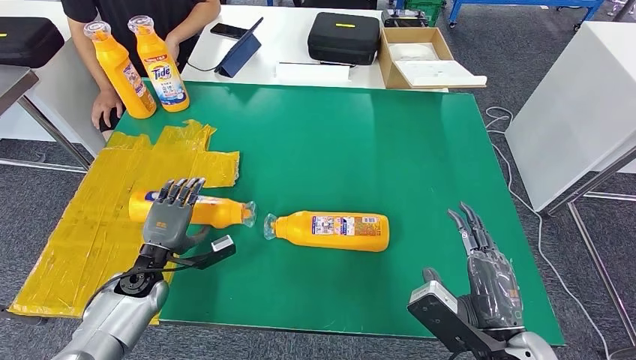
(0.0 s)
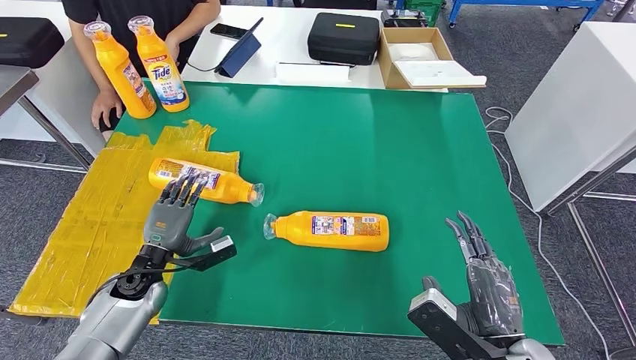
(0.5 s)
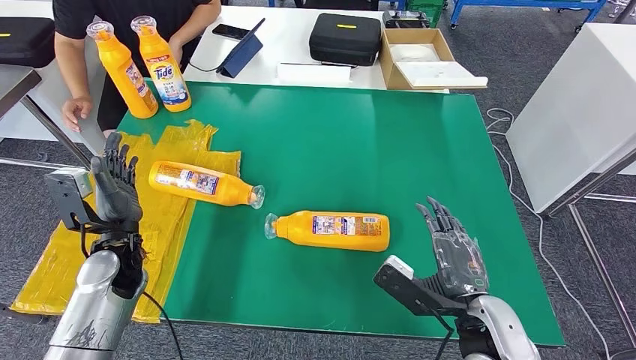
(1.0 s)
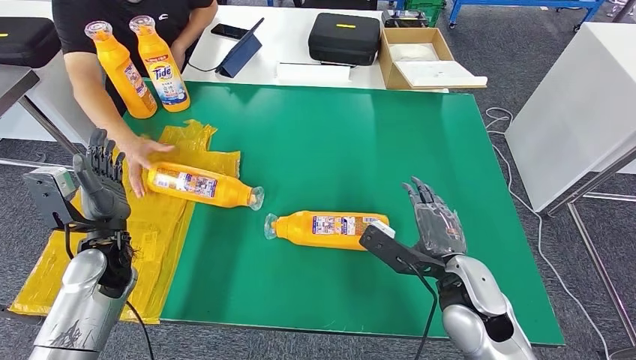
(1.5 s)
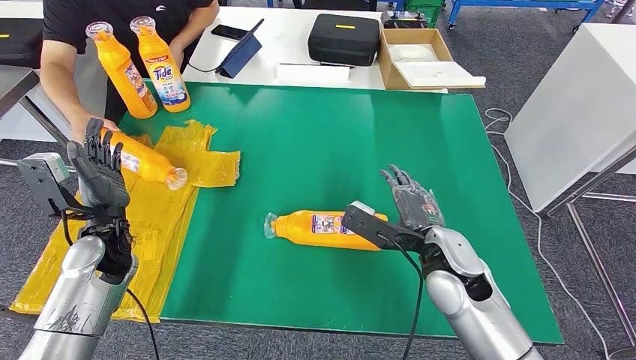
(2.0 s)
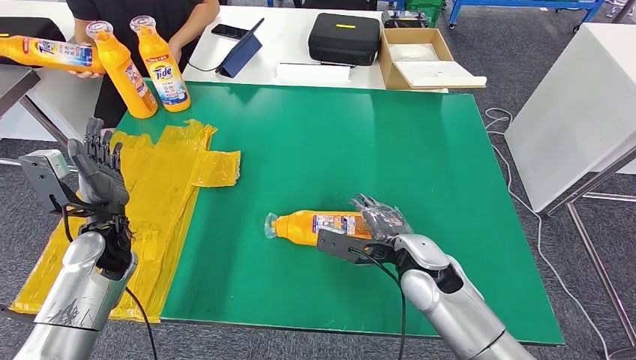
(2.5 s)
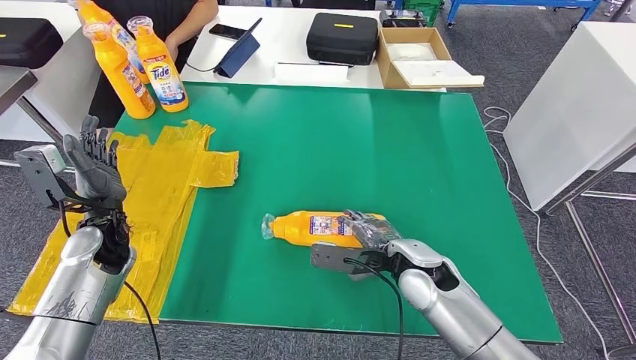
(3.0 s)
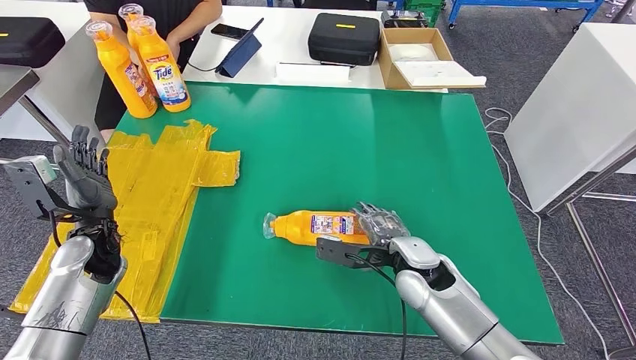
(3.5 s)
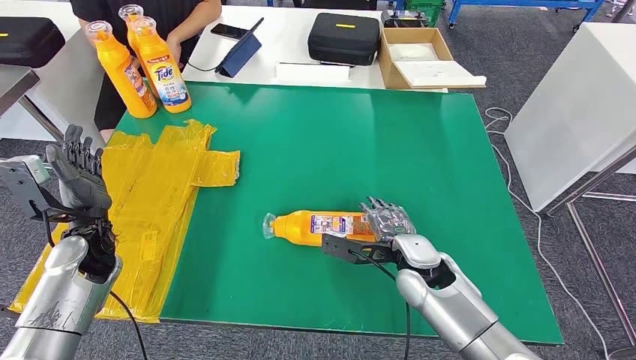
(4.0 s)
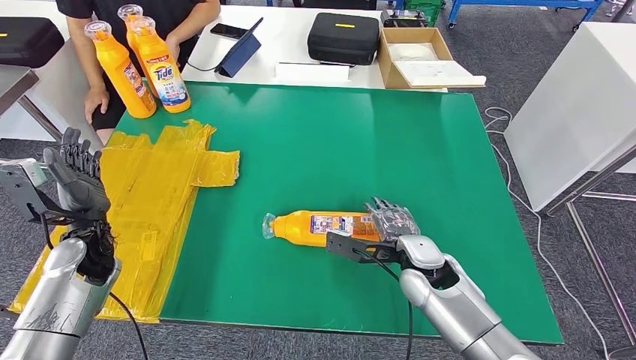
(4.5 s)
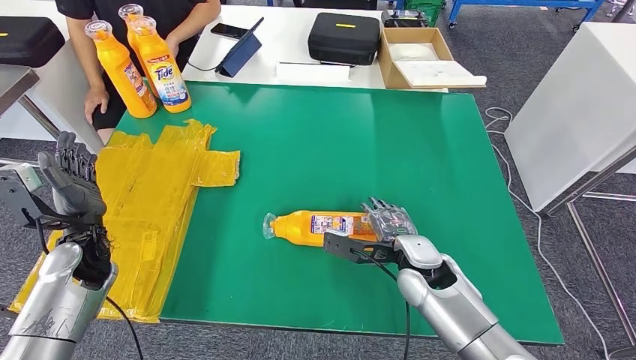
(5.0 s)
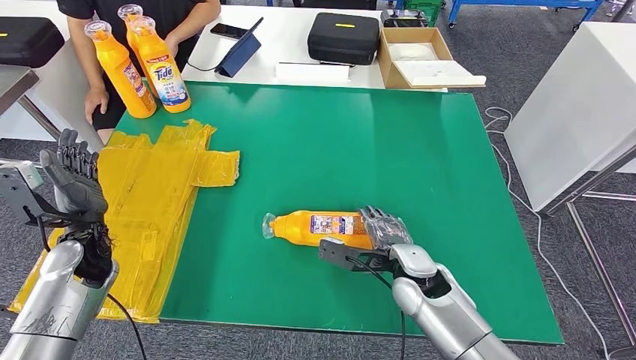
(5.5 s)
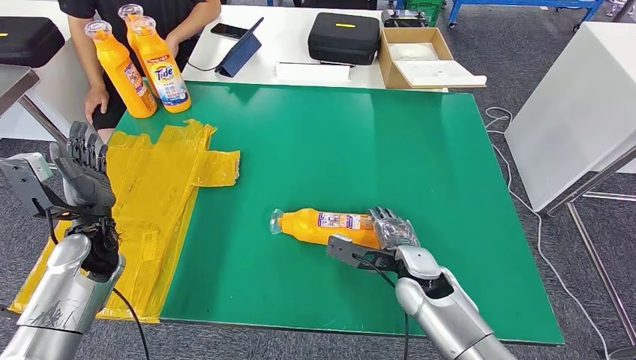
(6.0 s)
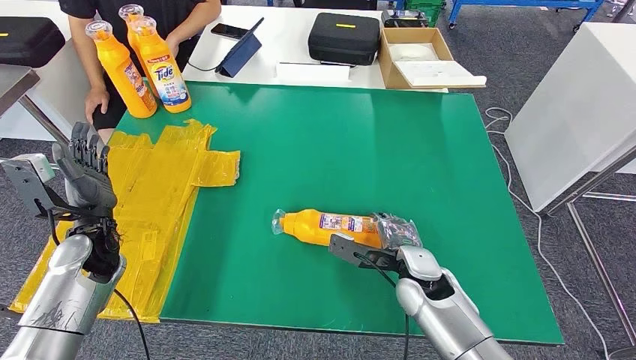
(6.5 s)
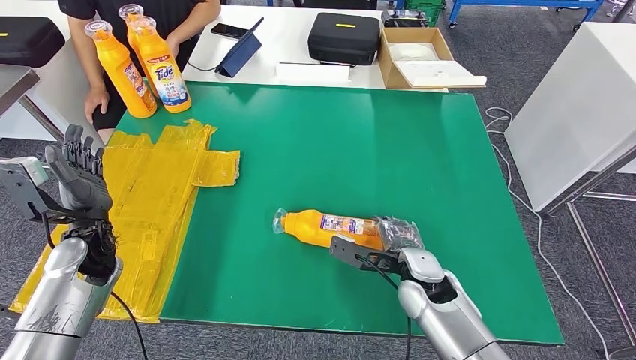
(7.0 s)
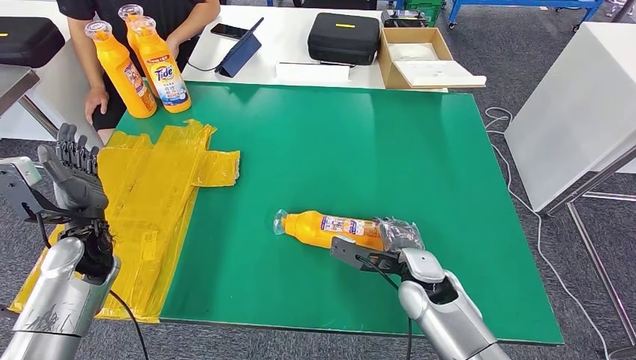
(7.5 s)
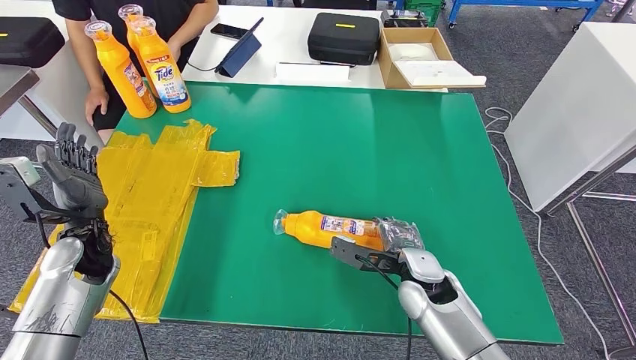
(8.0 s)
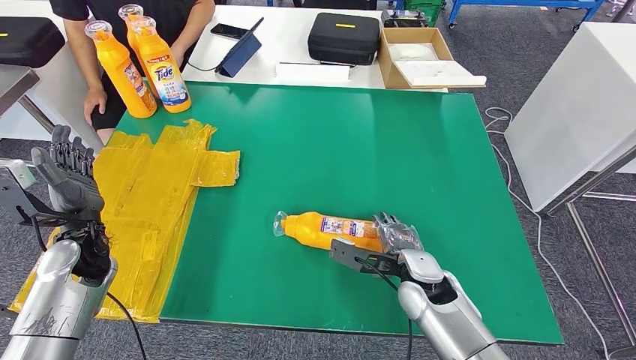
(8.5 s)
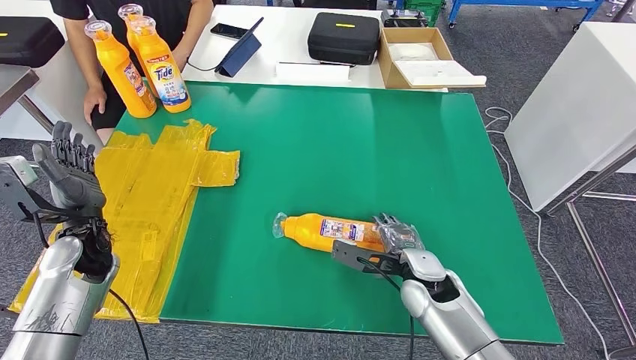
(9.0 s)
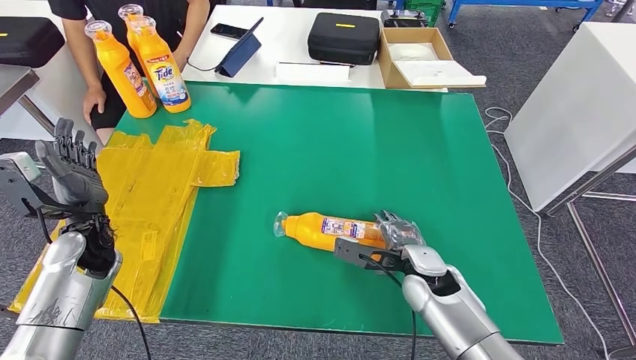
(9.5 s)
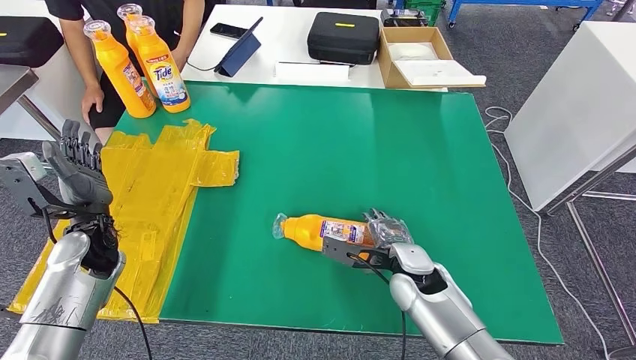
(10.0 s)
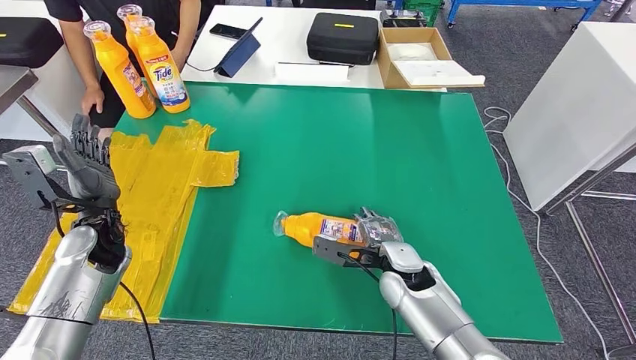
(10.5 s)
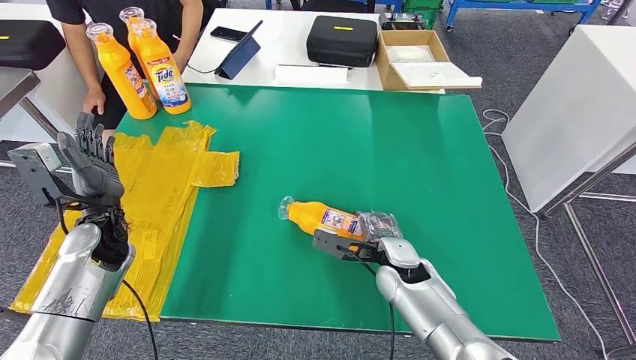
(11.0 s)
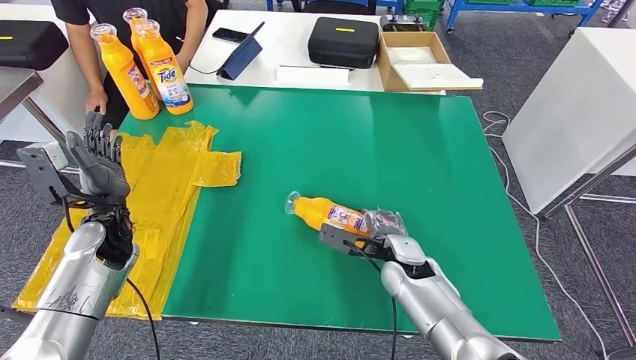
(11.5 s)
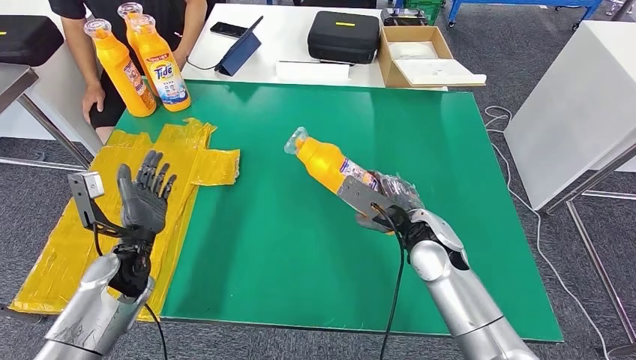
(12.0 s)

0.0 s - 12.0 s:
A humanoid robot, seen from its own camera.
Step, 0.0 s - 7.0 s: Flip the fast-moving consumer goods bottle to the front side.
4.0 s - 6.0 s: There are only small adjustments of the hands.
6.0 s - 8.0 s: Neither hand changes place.
8.0 s - 10.0 s: The hands move only a little.

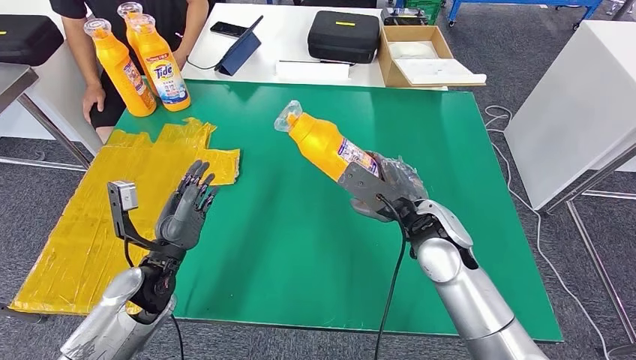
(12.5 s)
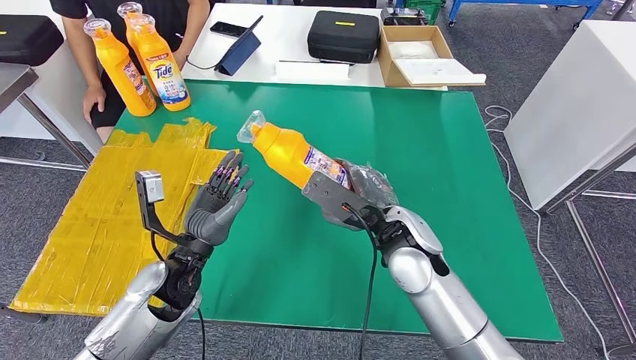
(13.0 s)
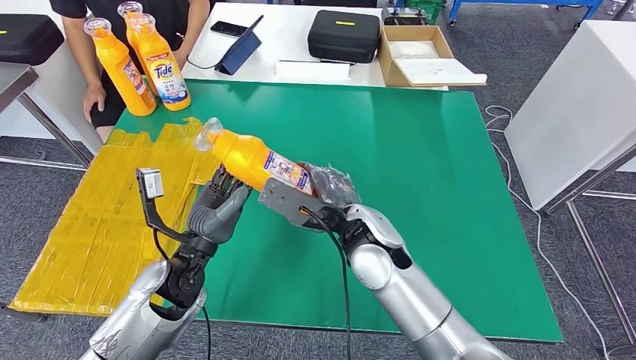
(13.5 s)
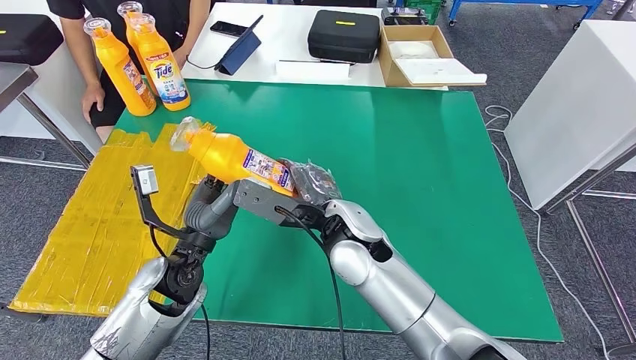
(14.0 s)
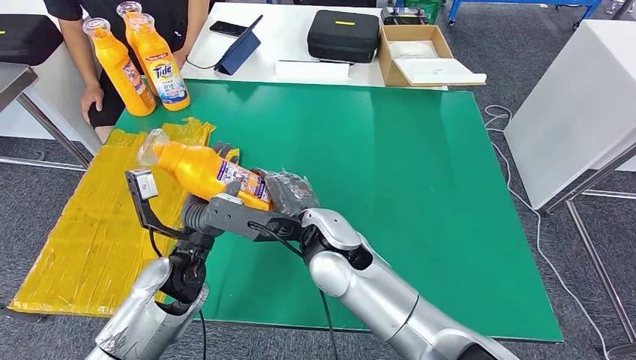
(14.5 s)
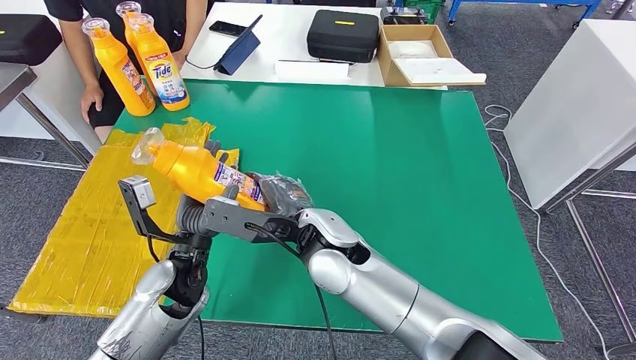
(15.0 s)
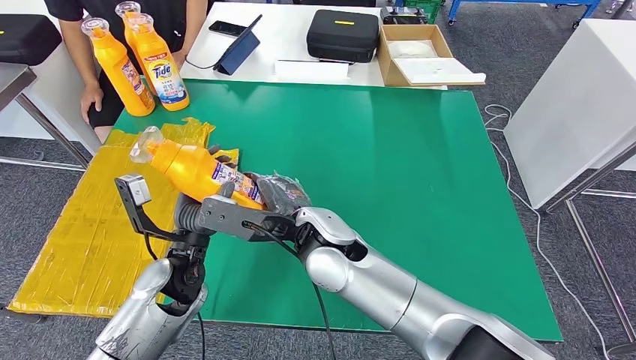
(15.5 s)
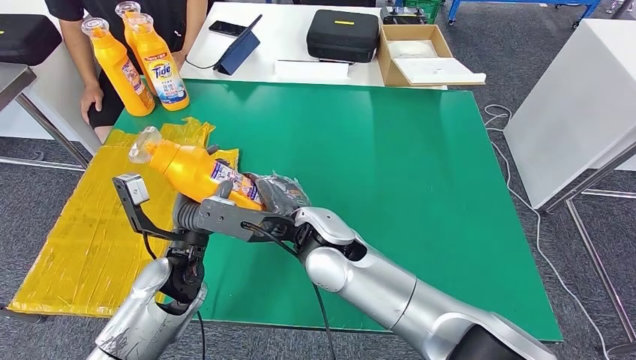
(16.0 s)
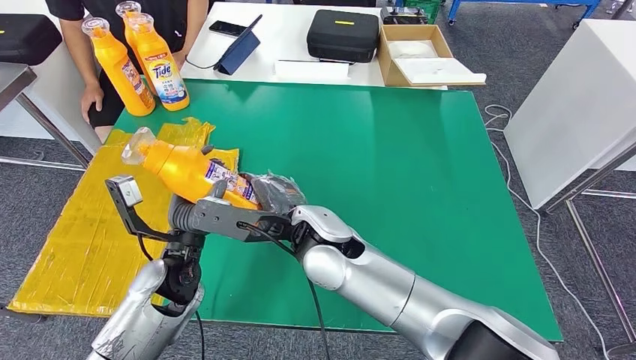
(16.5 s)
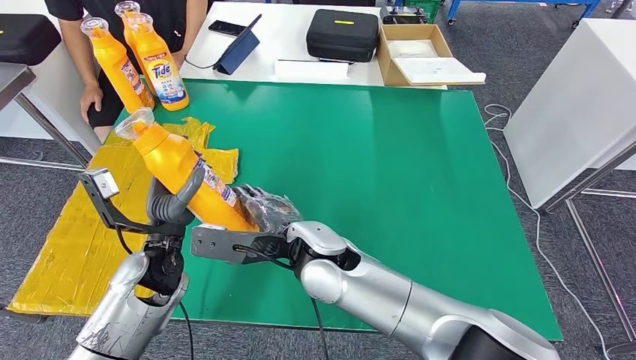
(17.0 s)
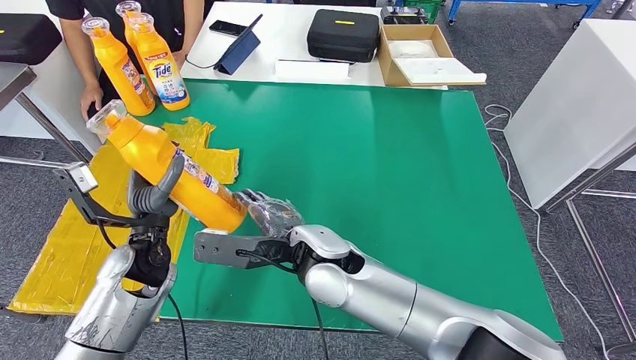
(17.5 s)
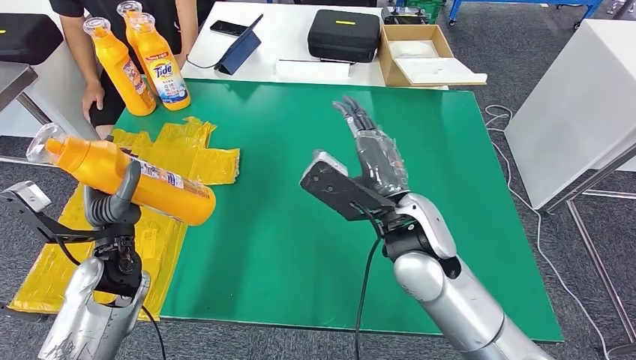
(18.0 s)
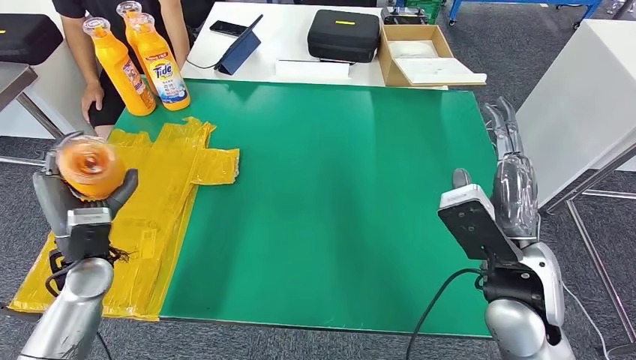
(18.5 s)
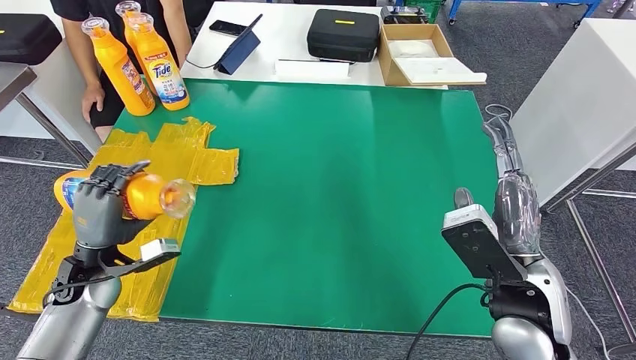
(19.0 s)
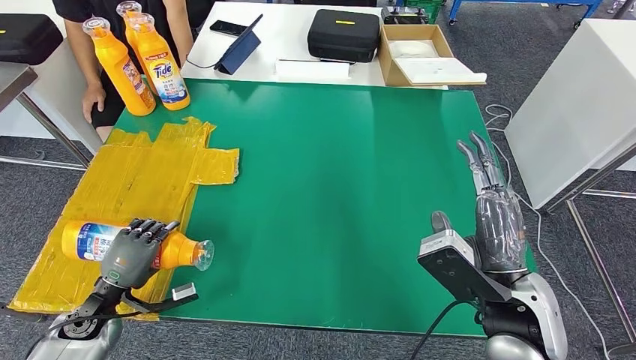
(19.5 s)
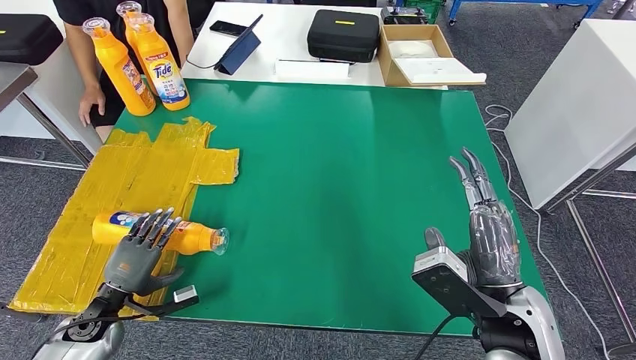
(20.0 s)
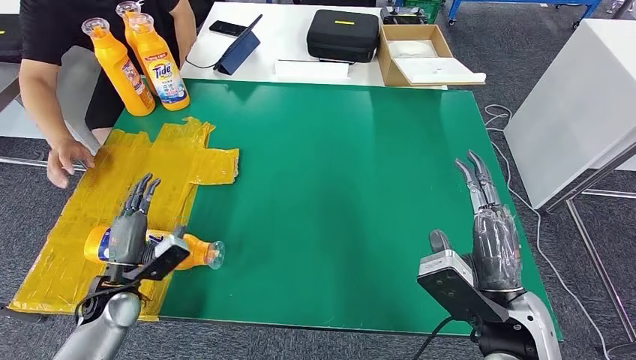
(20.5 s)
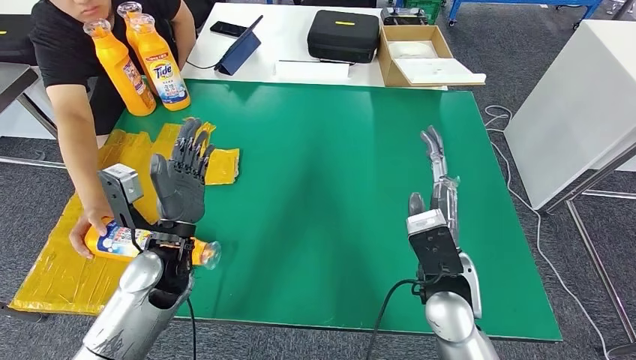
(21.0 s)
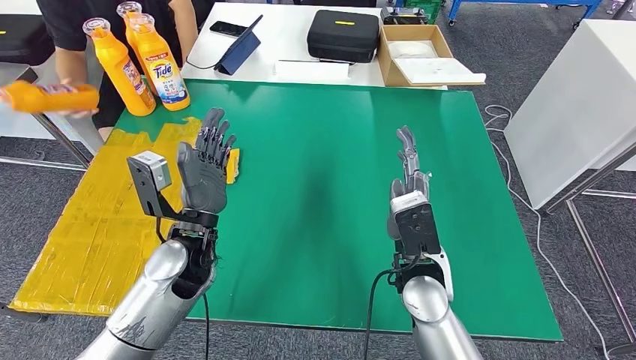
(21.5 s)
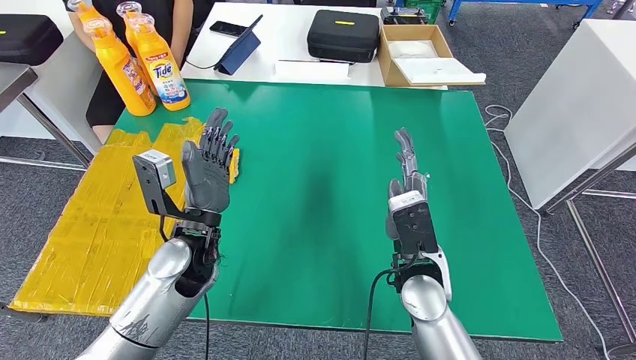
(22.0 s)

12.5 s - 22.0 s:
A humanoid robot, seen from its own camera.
Step, 12.5 s - 18.0 s: Pick up the fast-moving consumer goods bottle from the table.
14.5 s - 16.5 s: There are only small adjustments of the hands.
